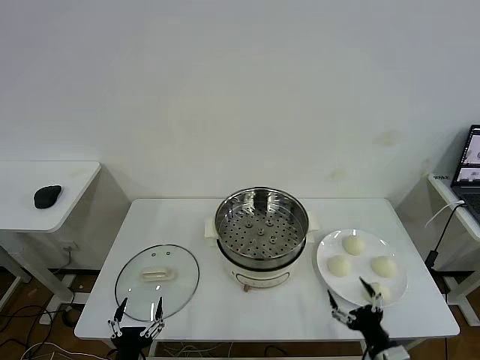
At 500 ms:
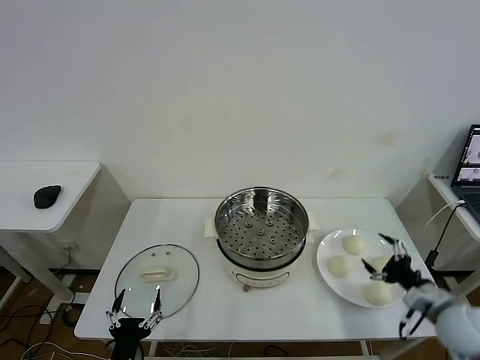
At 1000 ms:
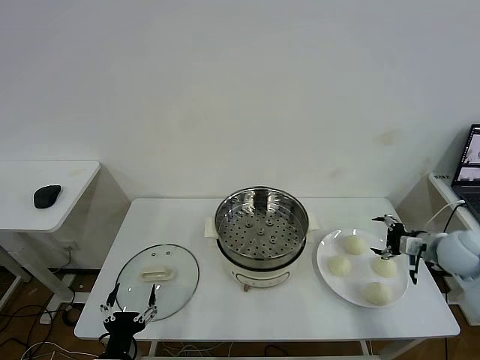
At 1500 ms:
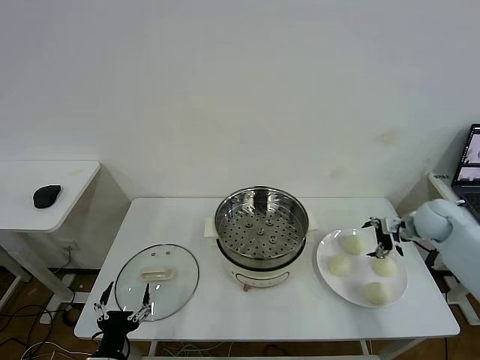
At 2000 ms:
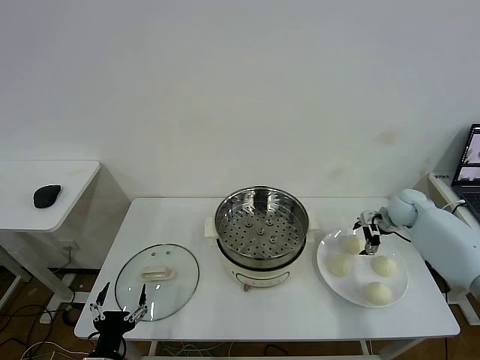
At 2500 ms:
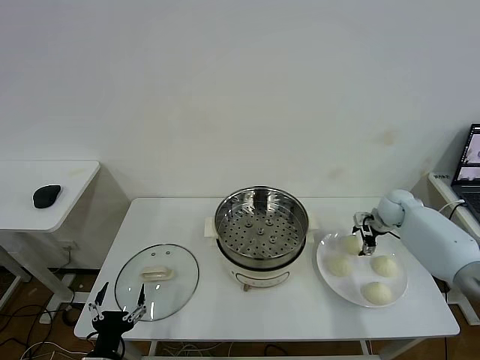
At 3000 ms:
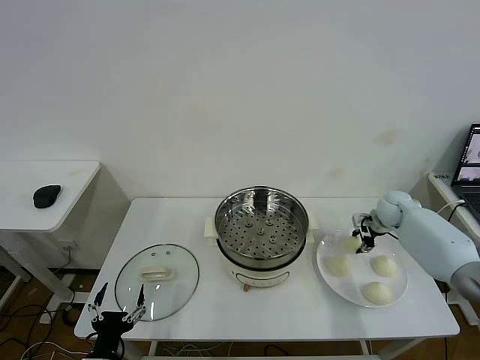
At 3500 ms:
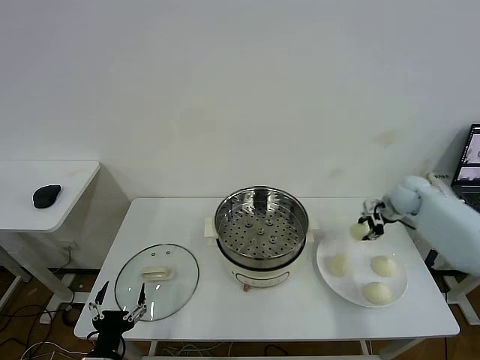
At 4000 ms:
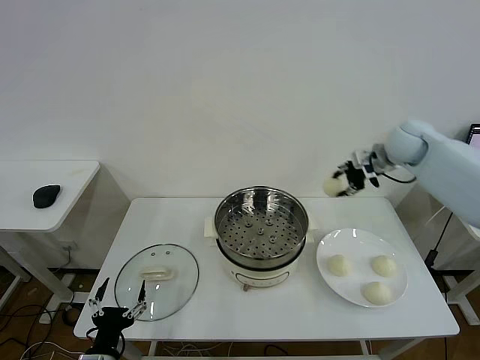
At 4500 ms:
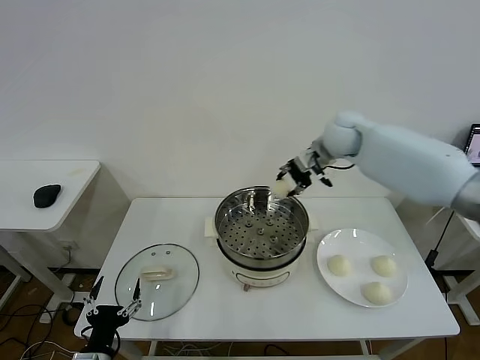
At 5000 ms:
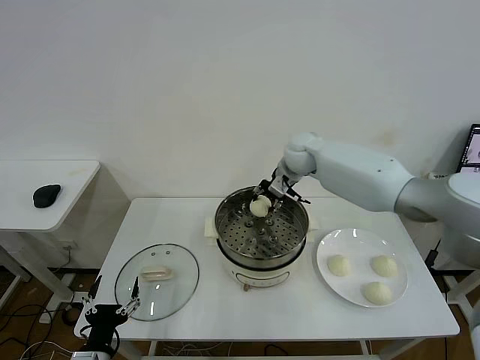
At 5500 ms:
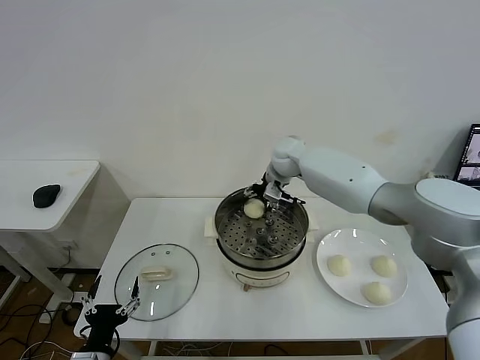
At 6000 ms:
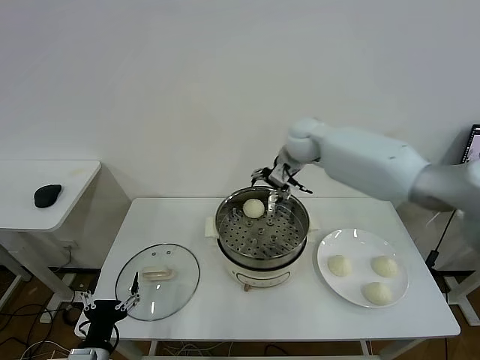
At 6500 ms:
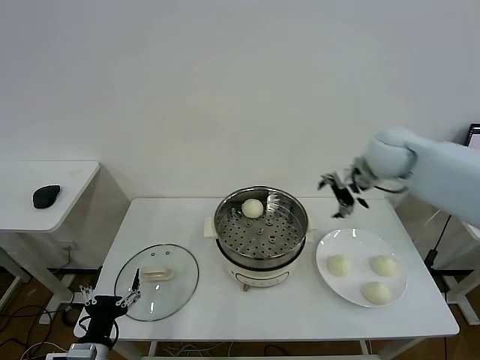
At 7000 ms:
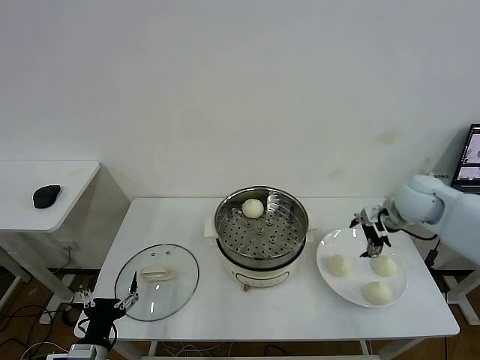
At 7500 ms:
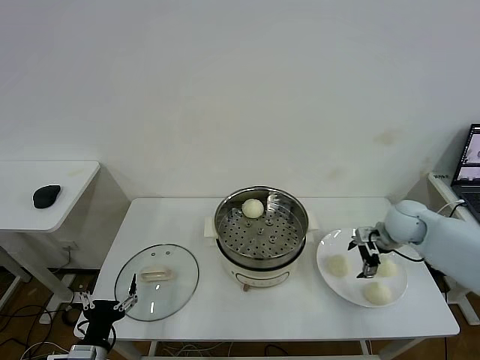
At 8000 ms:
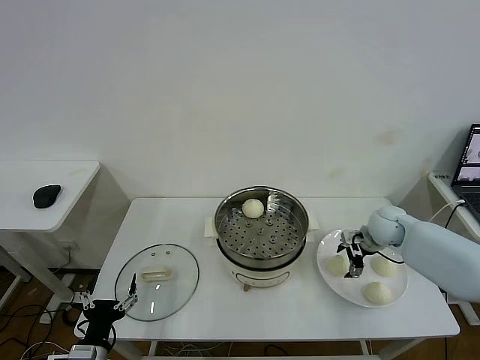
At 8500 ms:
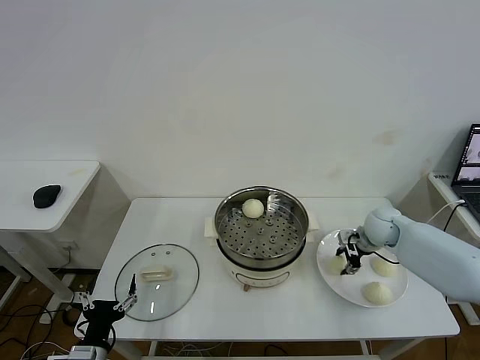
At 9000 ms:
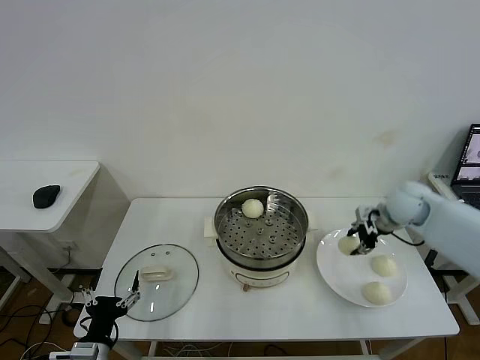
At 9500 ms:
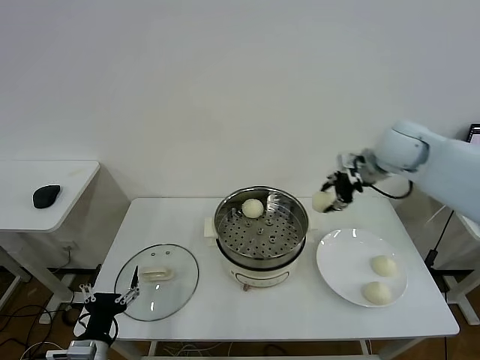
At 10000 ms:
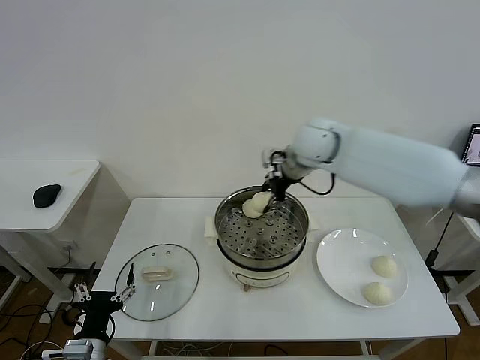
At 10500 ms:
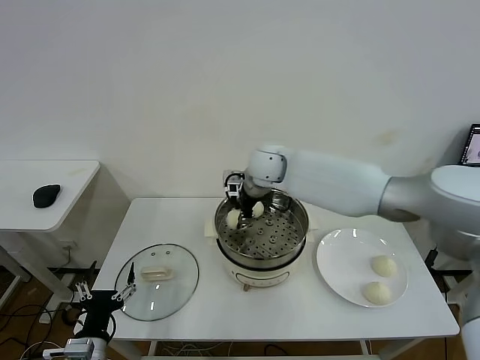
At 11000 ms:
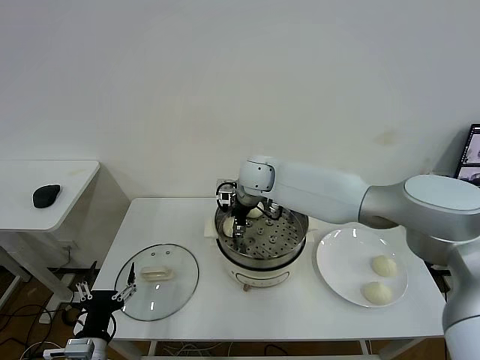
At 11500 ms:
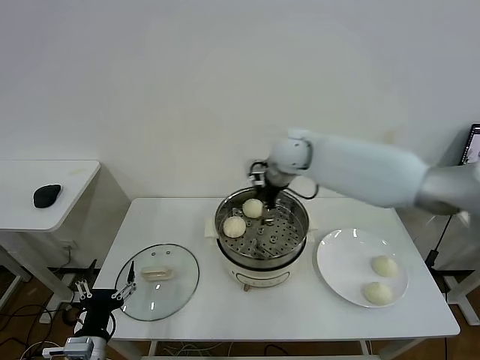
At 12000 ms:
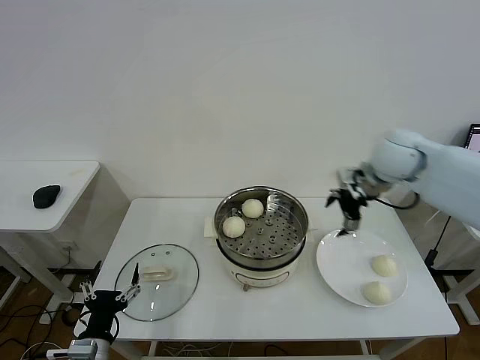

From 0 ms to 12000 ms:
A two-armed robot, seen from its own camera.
Task of the whole recording: take steamed baozi put them in steamer then cover it.
Step, from 0 ms to 2500 ms: Grasp the baozi in the plate with right gripper.
Step, from 3000 ms to 5500 ms: Place the baozi on the steamer with right gripper.
Step, from 6000 ms to 8000 ms: Grasp the baozi in the plate with right gripper.
Step, from 8500 ms to 11000 ms: Place the baozi on the steamer with right gripper.
From 2000 ms to 4000 ms: The right gripper shifts about 25 cm upward and to the left, and closes.
From 4000 ms to 6000 ms: The right gripper moves to the left, some 15 cm, and opens its fingers.
From 6000 ms to 8000 ms: The right gripper moves downward, to the right and backward, some 30 cm.
From 8000 ms to 10000 ms: The right gripper goes about 30 cm to the left and upward, and closes up.
From 10000 ms to 12000 ms: The right gripper is displaced to the right by roughly 20 cm, and opens its fingers.

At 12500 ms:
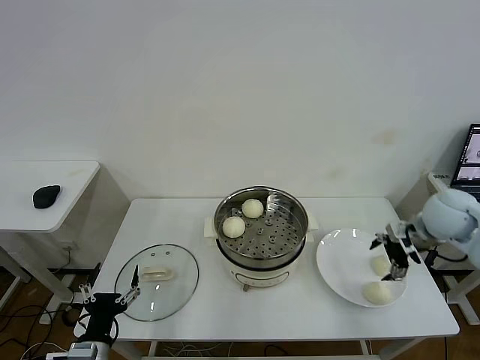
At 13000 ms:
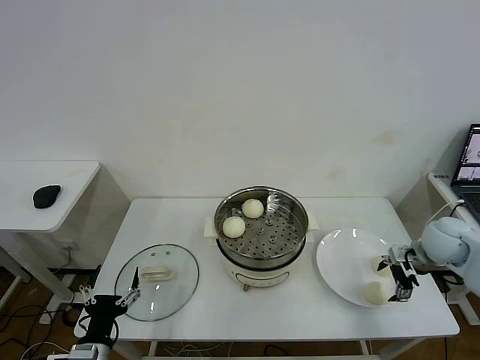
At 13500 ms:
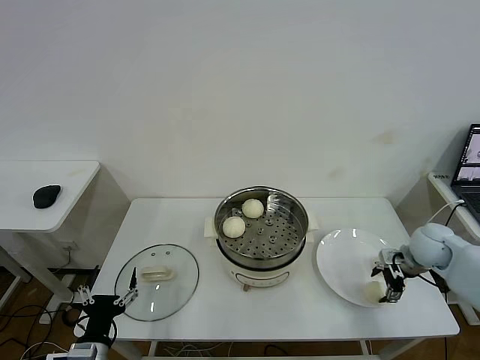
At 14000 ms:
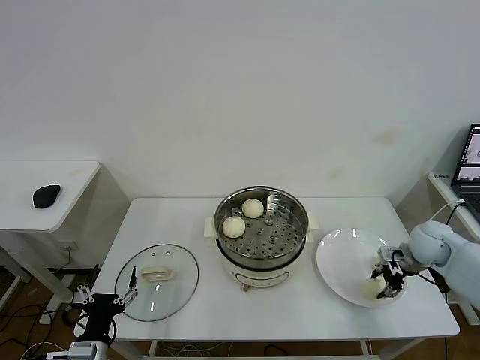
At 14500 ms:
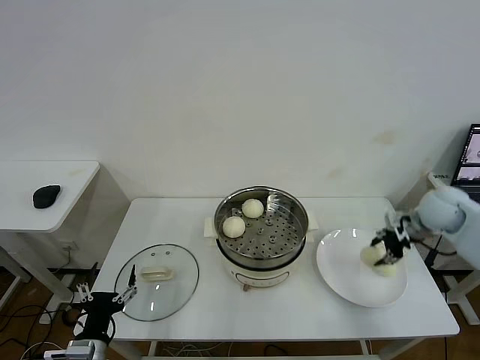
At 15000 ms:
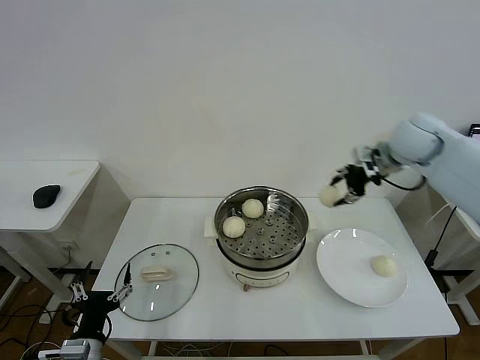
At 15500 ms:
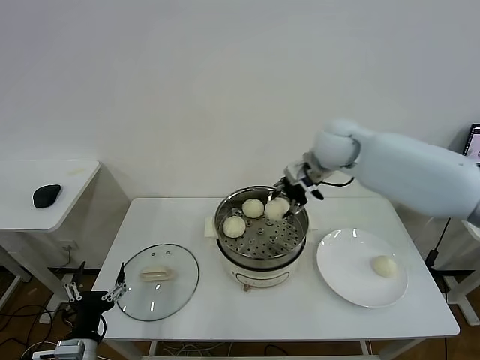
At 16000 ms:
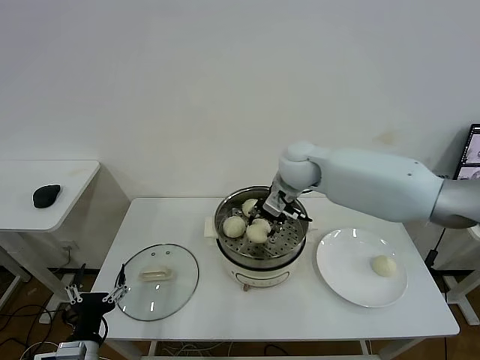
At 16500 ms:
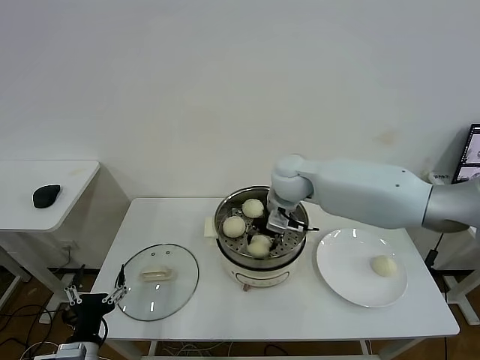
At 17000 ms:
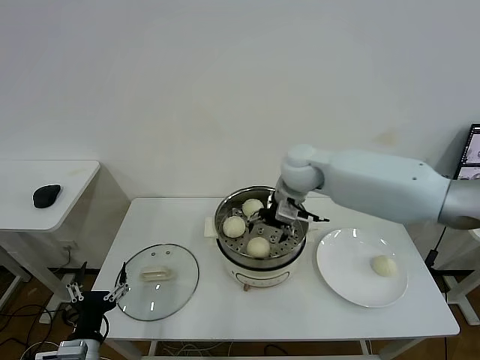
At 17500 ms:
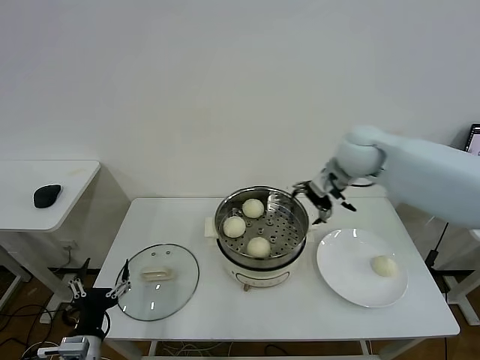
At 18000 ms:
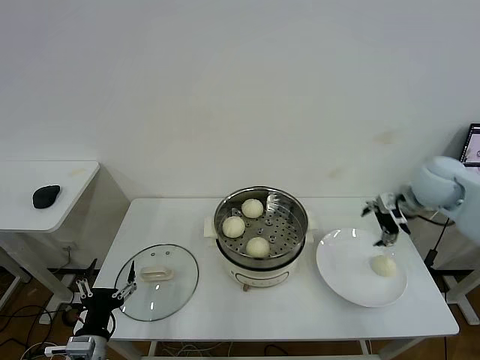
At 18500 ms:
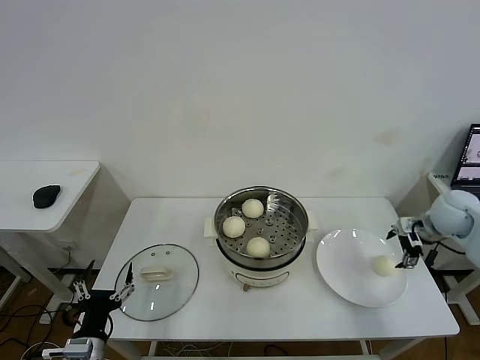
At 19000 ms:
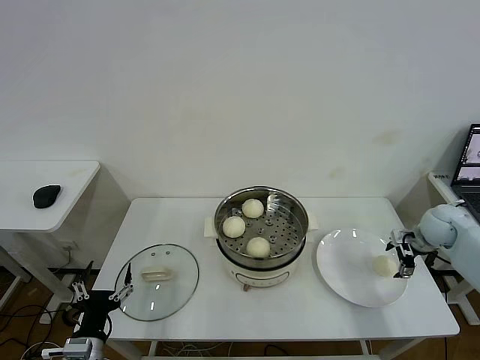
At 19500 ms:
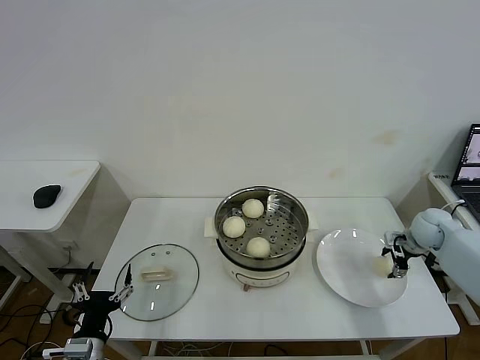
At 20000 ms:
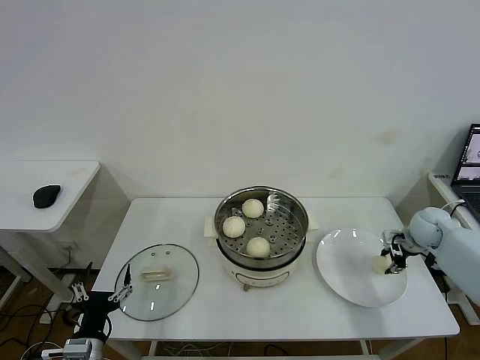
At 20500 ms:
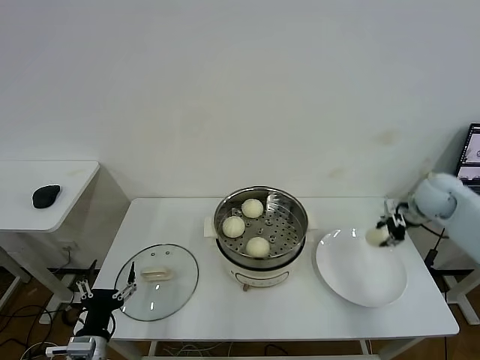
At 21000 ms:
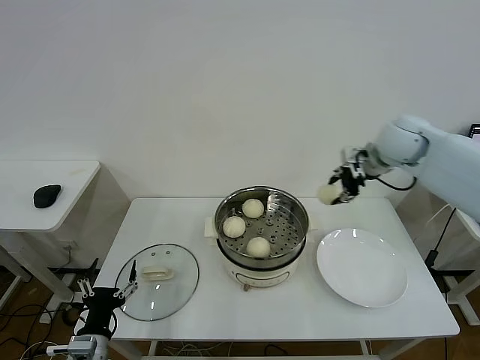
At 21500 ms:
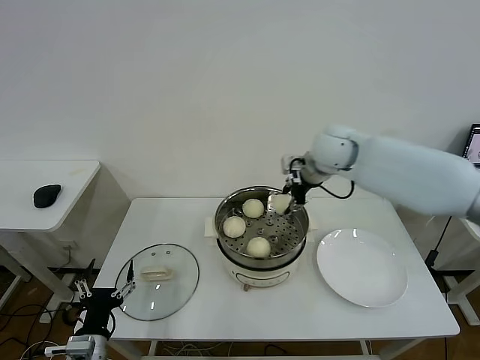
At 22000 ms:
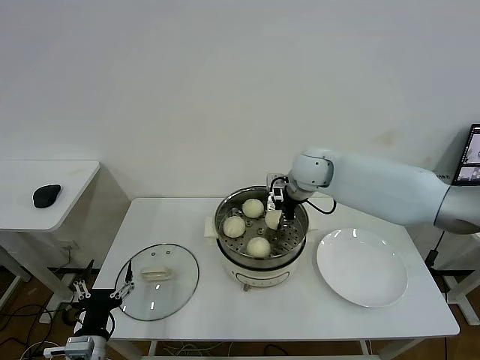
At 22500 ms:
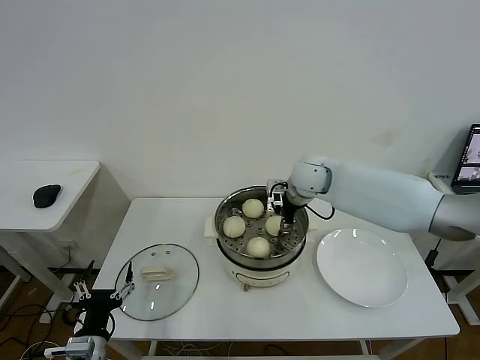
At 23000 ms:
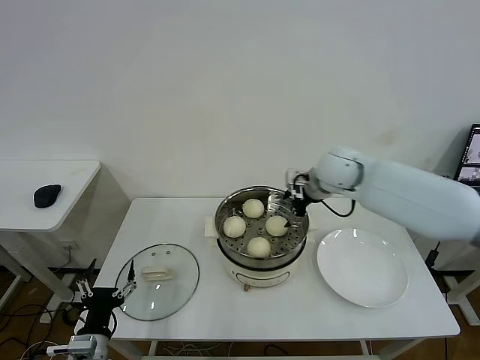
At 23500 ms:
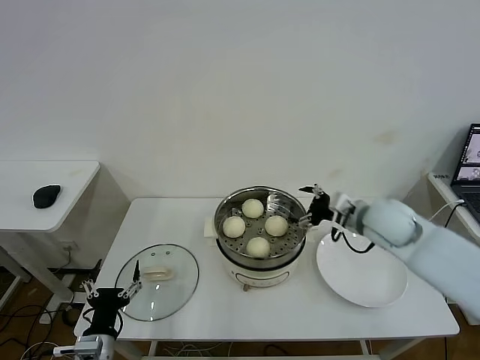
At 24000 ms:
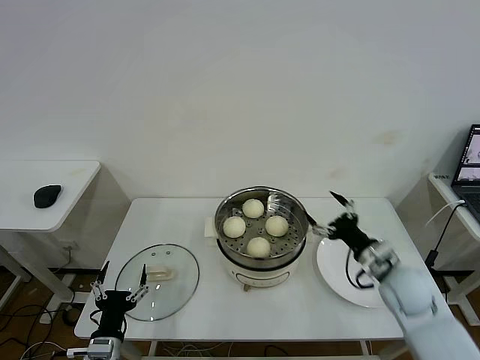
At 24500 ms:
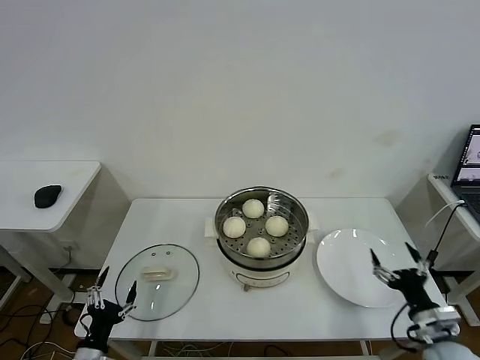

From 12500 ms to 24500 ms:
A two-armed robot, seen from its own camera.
Task of the whole recording: take steamed baozi put them in steamer then cover it.
Step, from 14000 ms to 17000 ms: Place the baozi on the steamer with right gripper.
Step, from 17500 ms to 19500 ms: Grasp the baozi in the plate with right gripper.
Step, from 20000 ms to 22500 ms: Place the baozi on the steamer with right gripper.
From 12500 ms to 14500 ms: The right gripper shifts approximately 5 cm forward, moves roughly 10 cm downward and comes back, and closes up.
From 14500 ms to 16500 ms: The right gripper heads to the left, covering about 35 cm.
From 16500 ms to 18500 ms: The right gripper is displaced to the right by roughly 35 cm, and opens.
From 18500 ms to 20500 ms: The right gripper reaches some 10 cm downward, then returns, and closes its fingers.
From 20500 ms to 22500 ms: The right gripper travels to the left by some 30 cm, and opens.
From 22500 ms to 24500 ms: The right gripper is displaced backward, to the right and downward by approximately 50 cm, while the left gripper changes place by roughly 5 cm.

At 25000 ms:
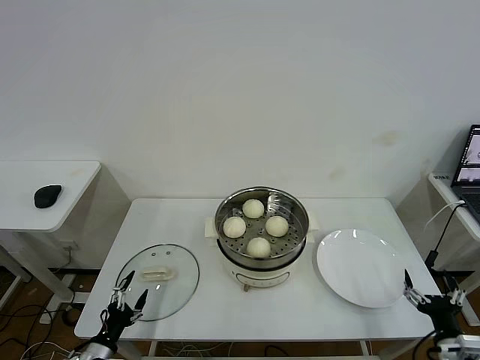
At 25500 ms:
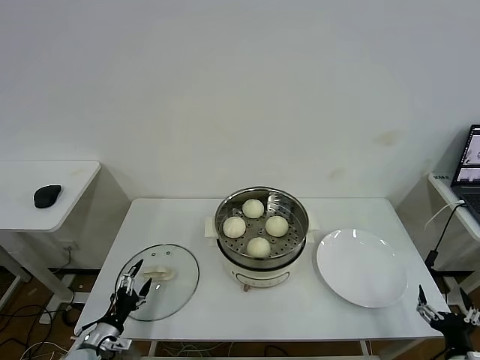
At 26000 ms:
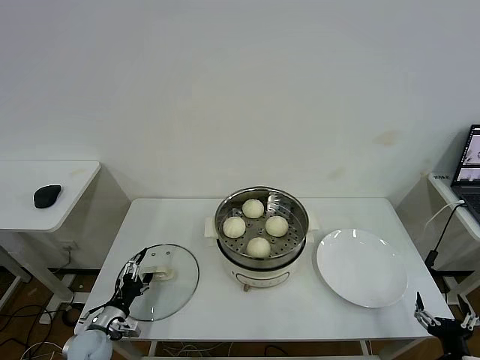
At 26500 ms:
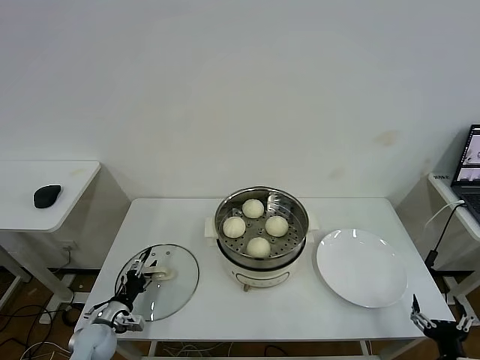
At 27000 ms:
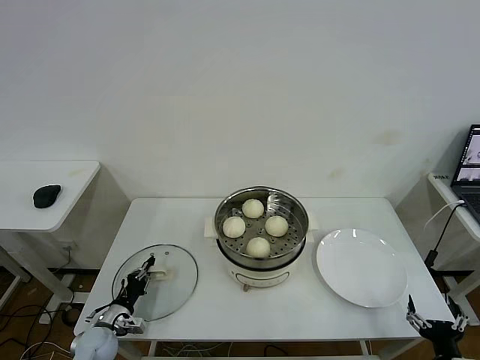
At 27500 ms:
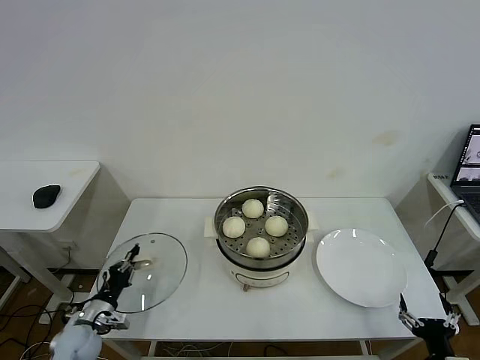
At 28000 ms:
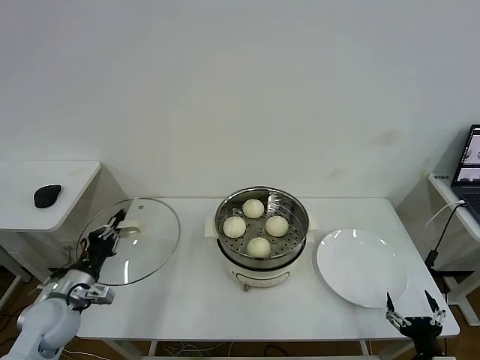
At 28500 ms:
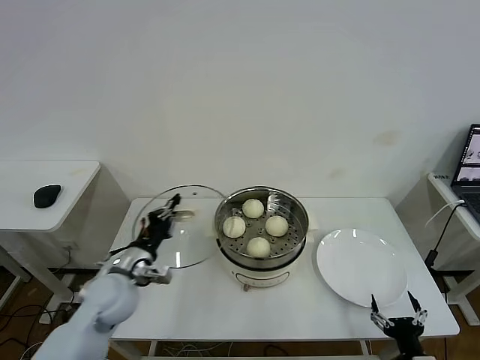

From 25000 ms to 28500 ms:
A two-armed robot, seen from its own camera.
Task of the whole recording: take steamed baozi put them in steamer then cover it.
Step, from 25000 ms to 27000 ms: Grasp the pot lid with left gripper.
From 25000 ms to 27000 ms: The right gripper ends up some 5 cm from where it was, while the left gripper travels forward by some 10 cm, and closes its fingers.
From 27000 ms to 28500 ms: The left gripper heads upward and to the right, covering approximately 25 cm; the right gripper travels to the left by approximately 5 cm.
